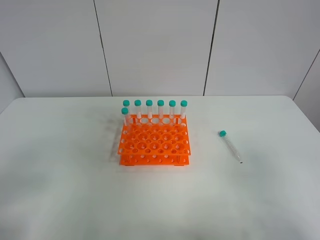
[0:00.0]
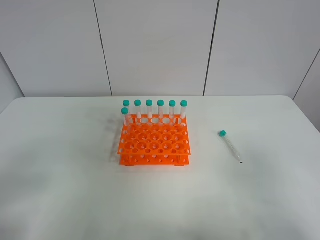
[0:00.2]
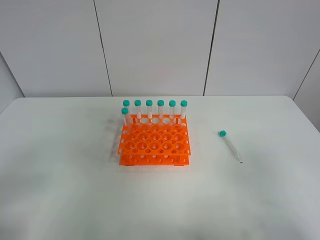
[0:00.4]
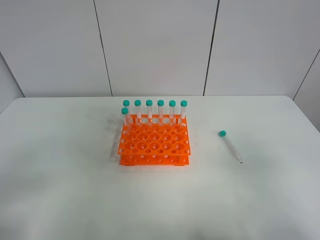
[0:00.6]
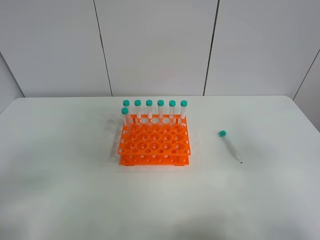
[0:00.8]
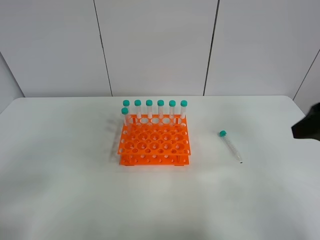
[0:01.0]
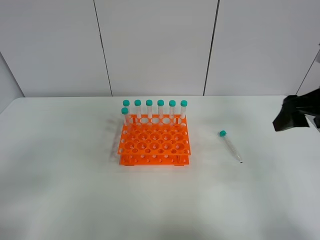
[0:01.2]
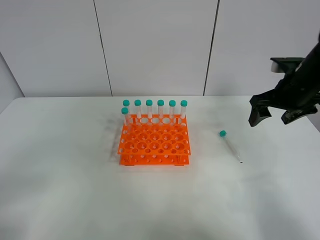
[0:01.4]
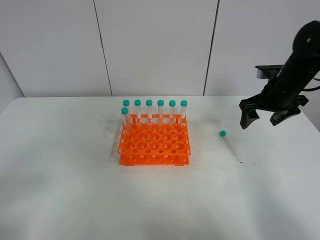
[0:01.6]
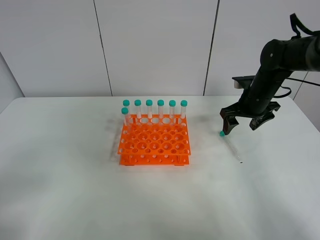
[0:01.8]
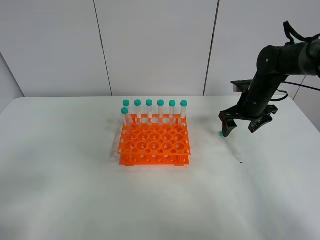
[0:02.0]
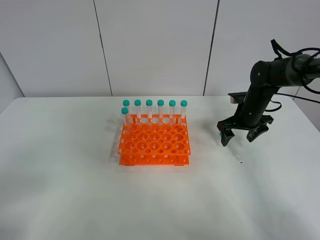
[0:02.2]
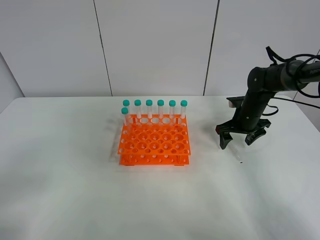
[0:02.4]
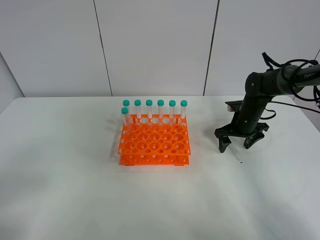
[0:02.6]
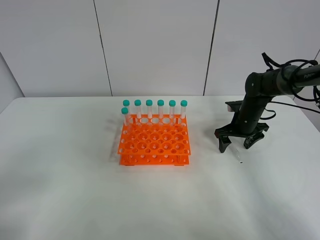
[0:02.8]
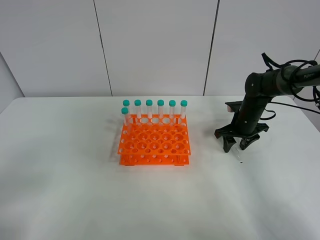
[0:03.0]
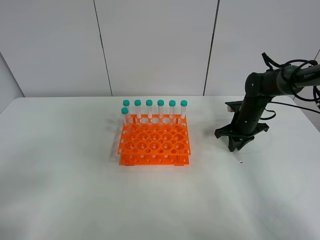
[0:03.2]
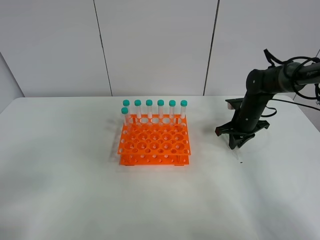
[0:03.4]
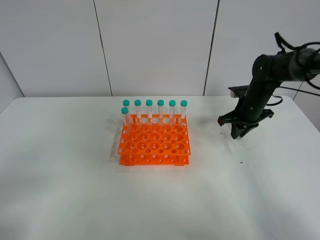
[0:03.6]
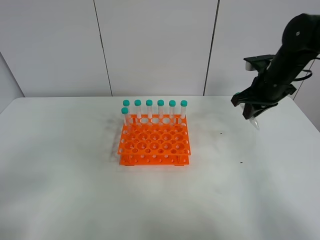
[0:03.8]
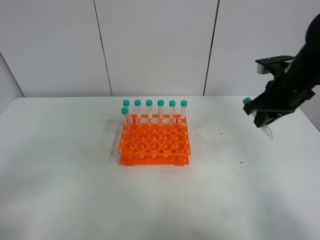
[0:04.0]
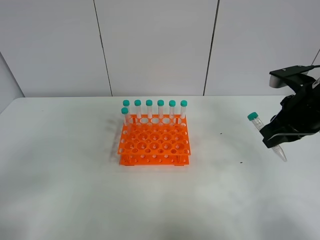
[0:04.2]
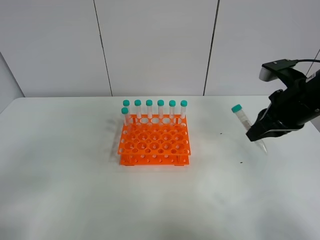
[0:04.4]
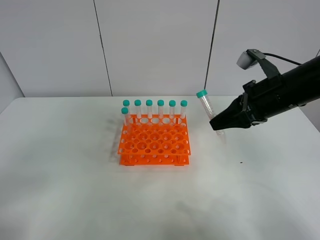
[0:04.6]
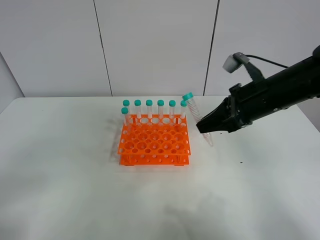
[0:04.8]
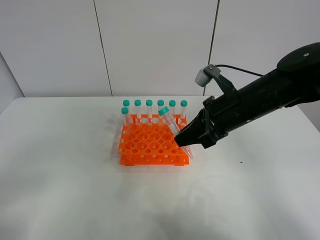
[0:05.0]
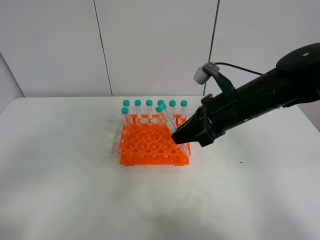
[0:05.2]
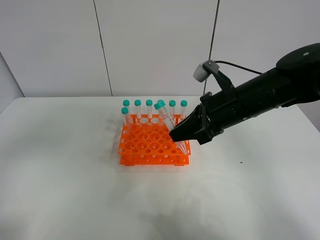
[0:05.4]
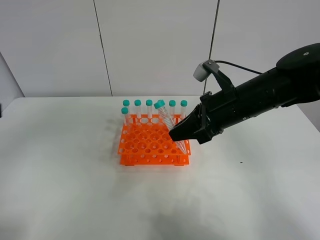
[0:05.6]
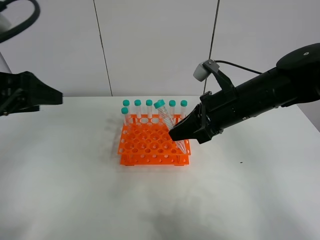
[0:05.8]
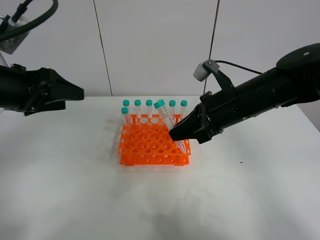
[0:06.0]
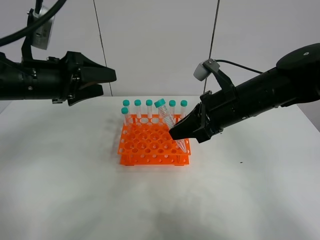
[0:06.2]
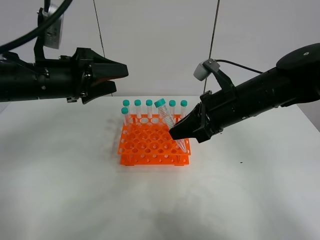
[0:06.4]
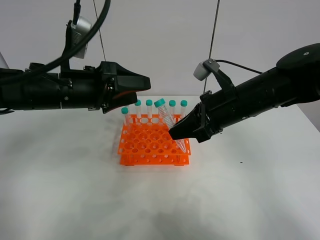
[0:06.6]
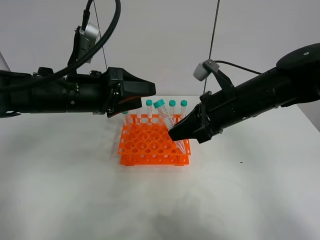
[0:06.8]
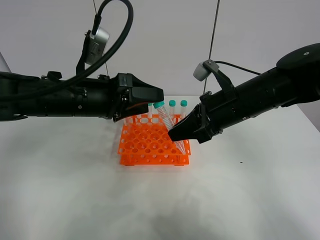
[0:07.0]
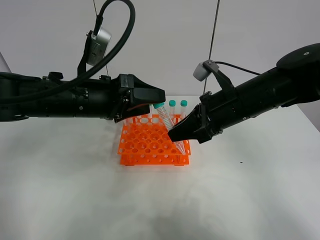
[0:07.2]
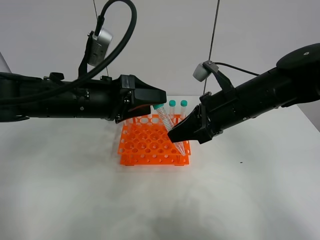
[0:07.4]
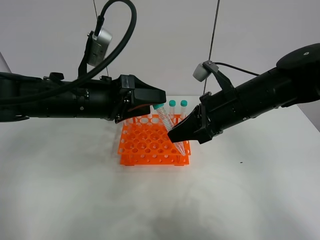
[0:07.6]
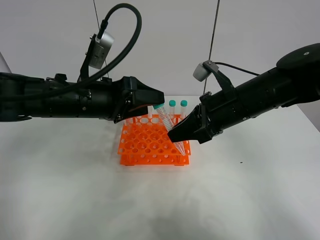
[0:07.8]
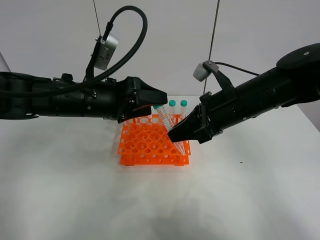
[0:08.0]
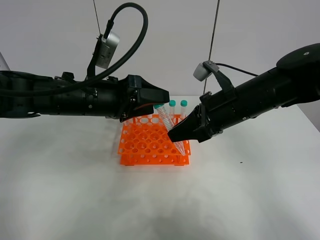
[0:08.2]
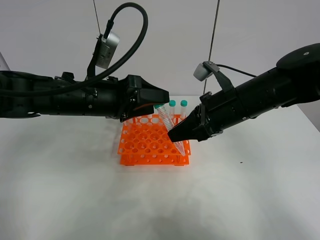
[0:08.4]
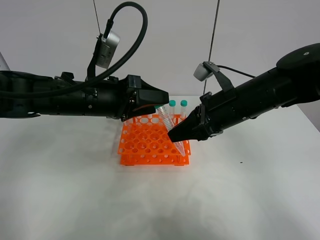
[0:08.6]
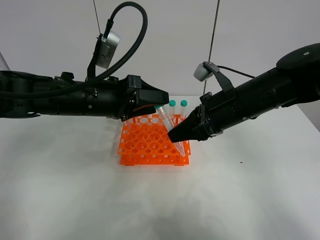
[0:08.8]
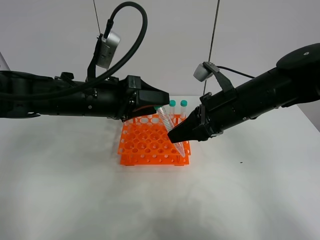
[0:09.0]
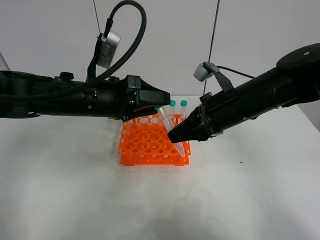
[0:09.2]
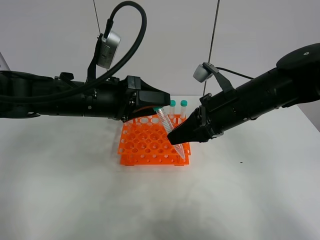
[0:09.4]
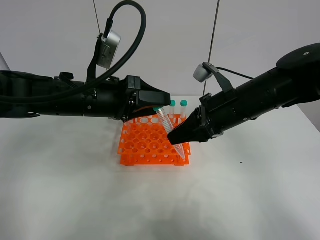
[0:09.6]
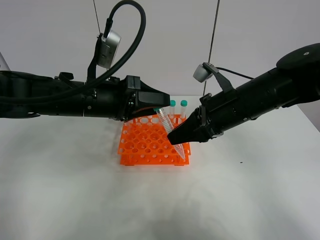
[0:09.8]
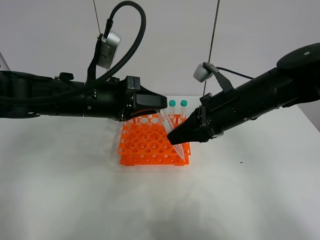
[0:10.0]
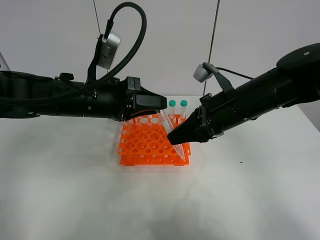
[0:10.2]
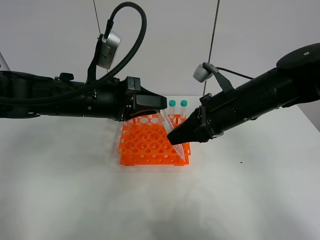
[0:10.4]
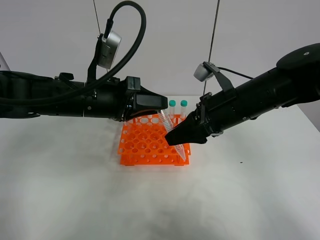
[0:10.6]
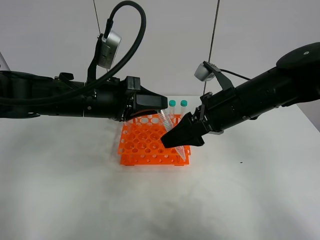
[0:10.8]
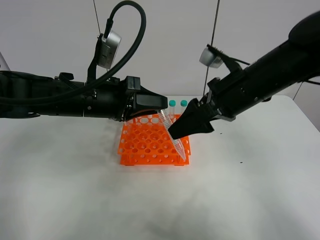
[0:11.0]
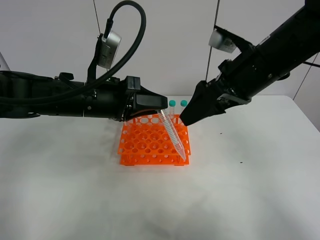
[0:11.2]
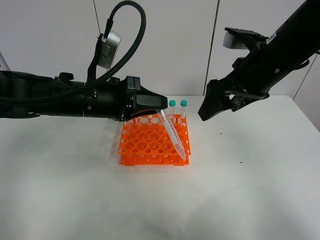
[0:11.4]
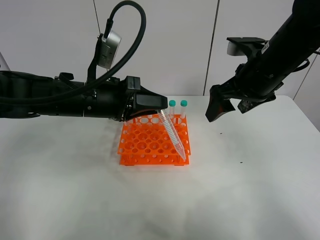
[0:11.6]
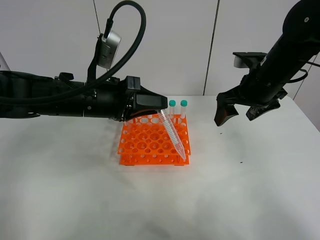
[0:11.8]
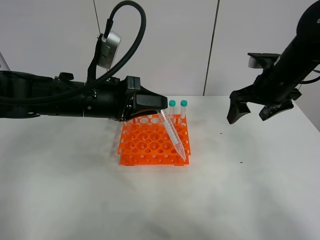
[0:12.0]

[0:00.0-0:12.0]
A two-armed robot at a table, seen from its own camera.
Task of the whole recording: Put the test tube on the table back onto the test tube rack.
Step, 0:00.0 to 0:03.2: Pick up the test tube with the right gripper.
Step, 0:03.4 to 0:10.6: Move the test tube from the right gripper to the left gripper.
0:00.0 to 0:01.6: The right gripper moves forward, some 35 cm.
0:01.6 to 0:03.0: The right gripper goes some 10 cm downward, and closes.
0:03.0 to 0:04.4: The right gripper shifts roughly 25 cm upward and backward, and closes up.
0:04.4 to 0:06.0: The right gripper goes some 10 cm to the left; the left gripper travels forward by approximately 25 cm.
0:06.0 to 0:07.6: The left gripper goes about 10 cm to the right.
0:07.6 to 0:09.0: The grippers stay close to where they were, moving slightly.
0:09.0 to 0:10.4: The left gripper closes.
0:10.4 to 0:12.0: The right gripper is displaced to the right and forward by approximately 15 cm, and opens up.

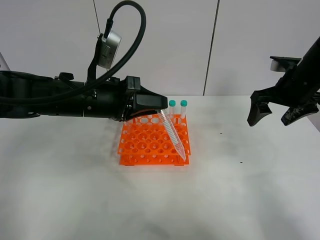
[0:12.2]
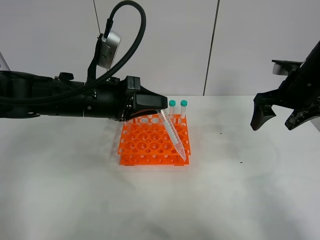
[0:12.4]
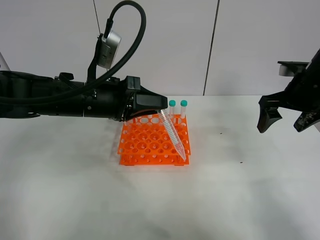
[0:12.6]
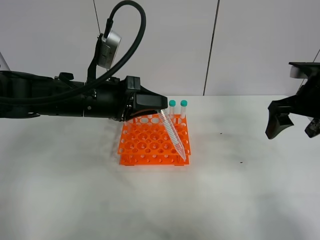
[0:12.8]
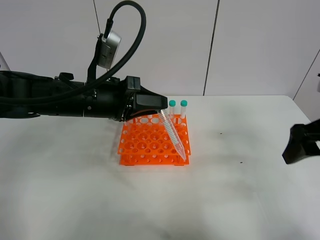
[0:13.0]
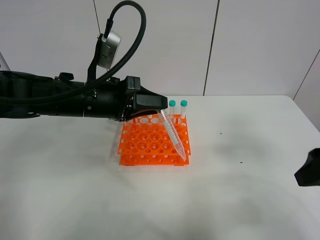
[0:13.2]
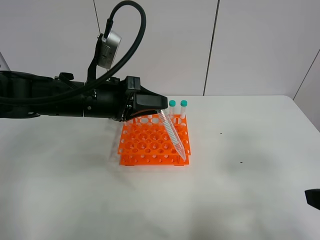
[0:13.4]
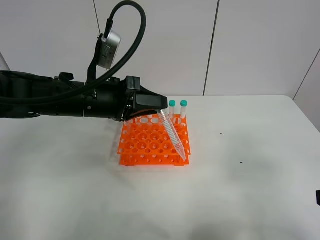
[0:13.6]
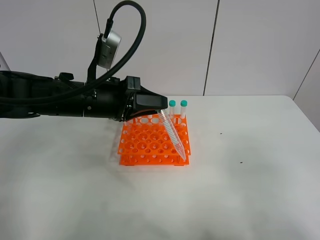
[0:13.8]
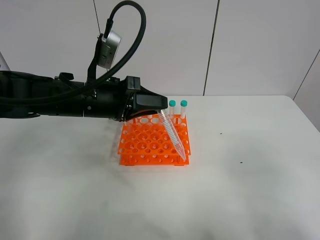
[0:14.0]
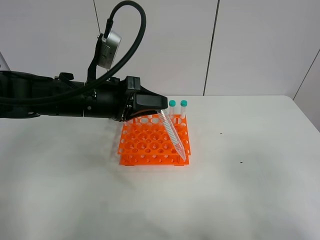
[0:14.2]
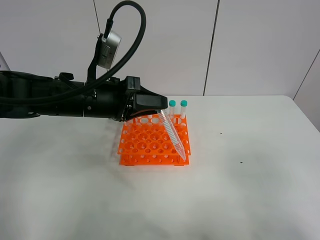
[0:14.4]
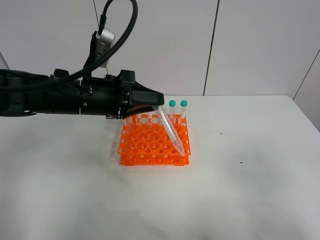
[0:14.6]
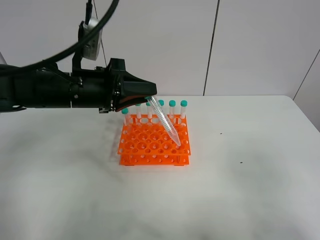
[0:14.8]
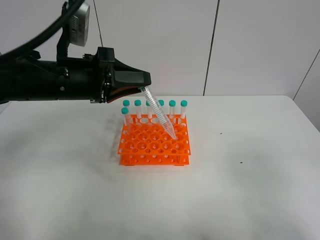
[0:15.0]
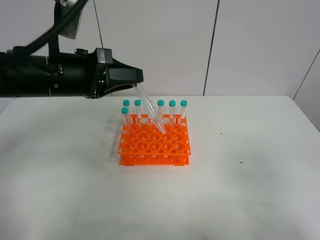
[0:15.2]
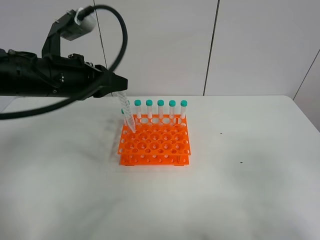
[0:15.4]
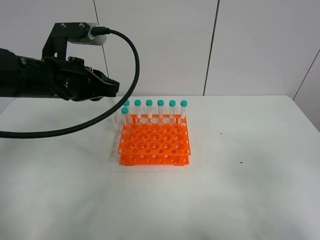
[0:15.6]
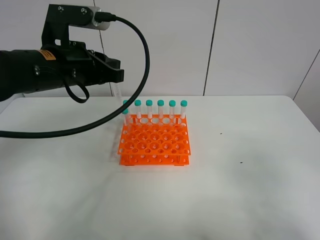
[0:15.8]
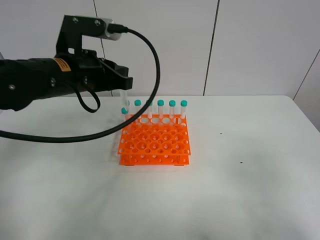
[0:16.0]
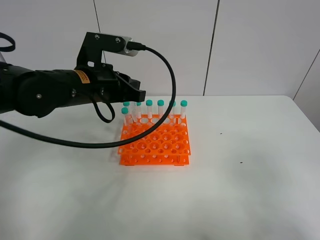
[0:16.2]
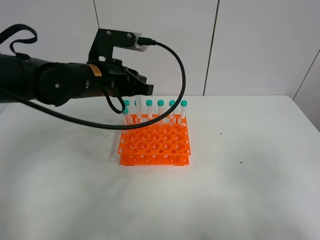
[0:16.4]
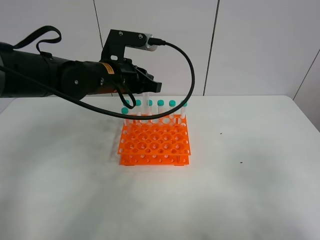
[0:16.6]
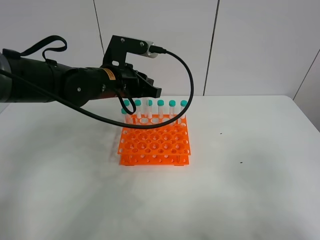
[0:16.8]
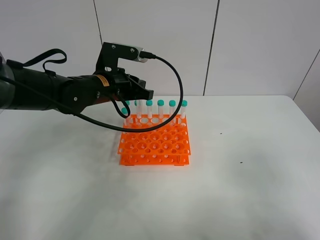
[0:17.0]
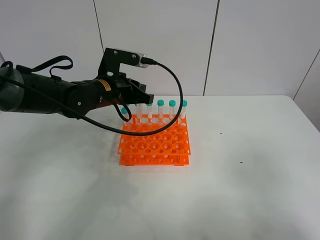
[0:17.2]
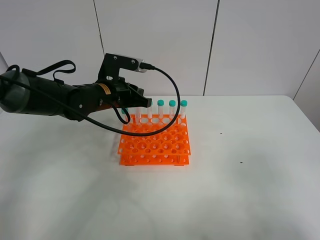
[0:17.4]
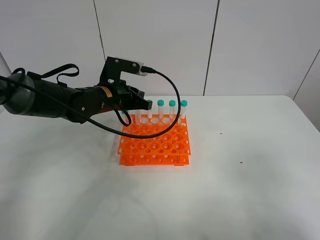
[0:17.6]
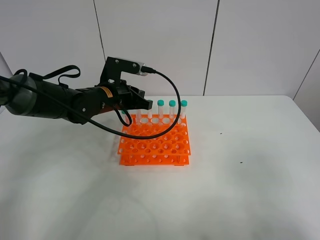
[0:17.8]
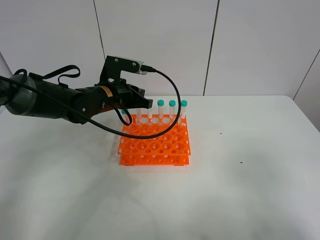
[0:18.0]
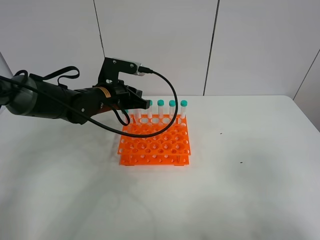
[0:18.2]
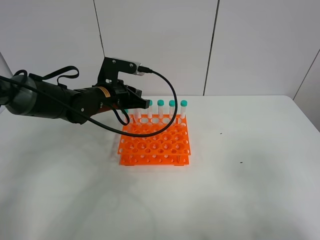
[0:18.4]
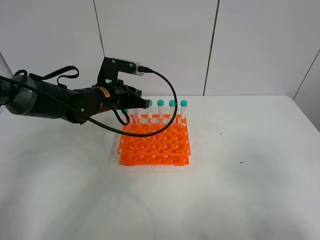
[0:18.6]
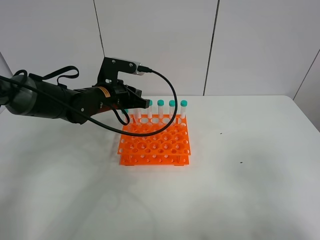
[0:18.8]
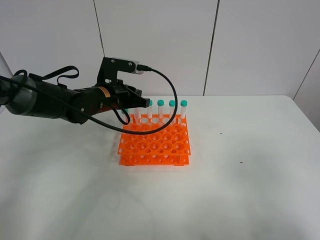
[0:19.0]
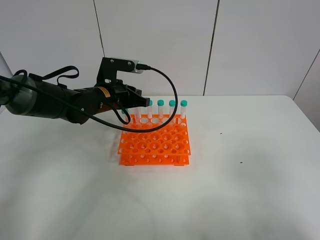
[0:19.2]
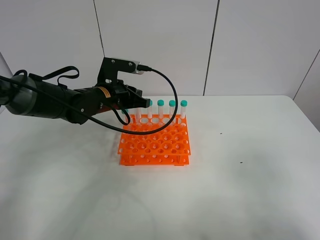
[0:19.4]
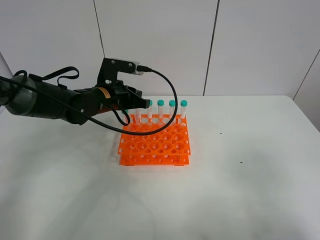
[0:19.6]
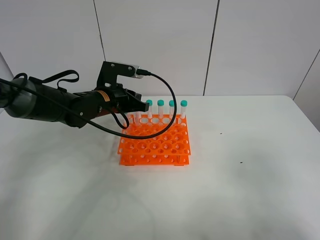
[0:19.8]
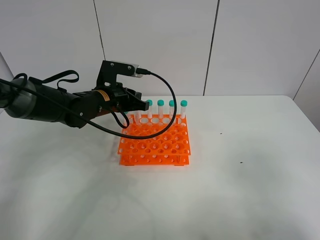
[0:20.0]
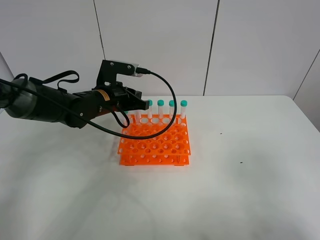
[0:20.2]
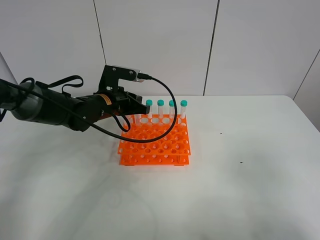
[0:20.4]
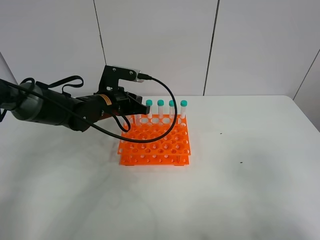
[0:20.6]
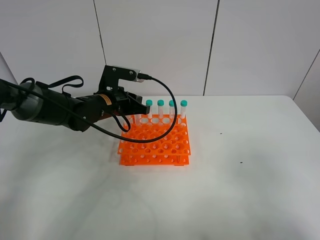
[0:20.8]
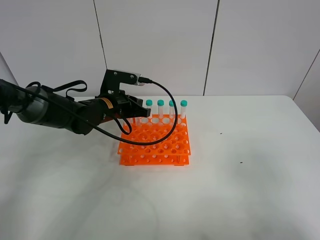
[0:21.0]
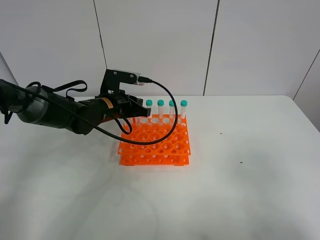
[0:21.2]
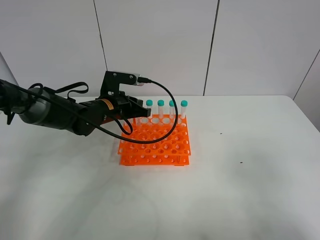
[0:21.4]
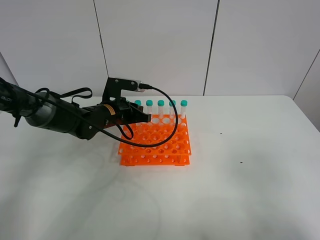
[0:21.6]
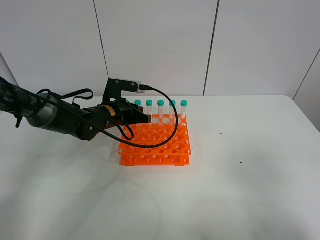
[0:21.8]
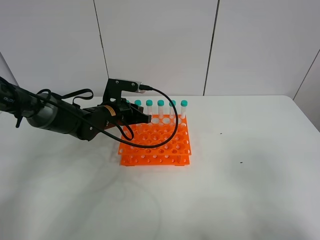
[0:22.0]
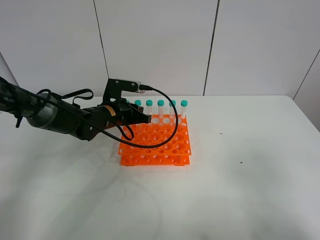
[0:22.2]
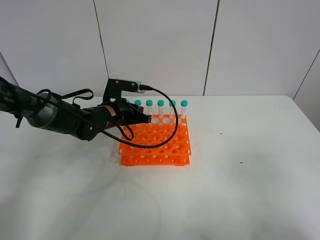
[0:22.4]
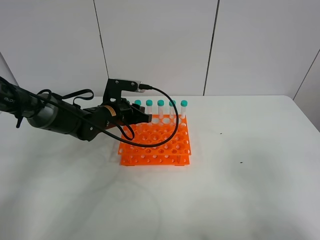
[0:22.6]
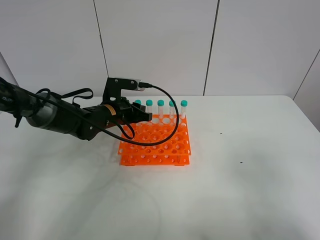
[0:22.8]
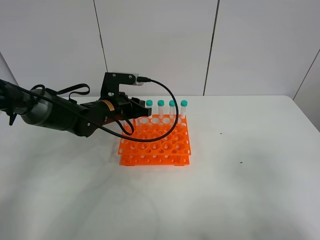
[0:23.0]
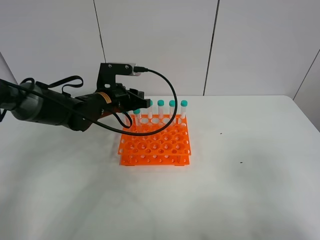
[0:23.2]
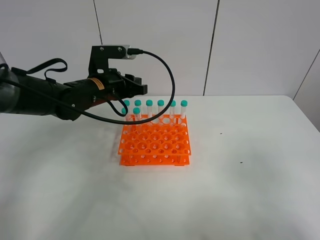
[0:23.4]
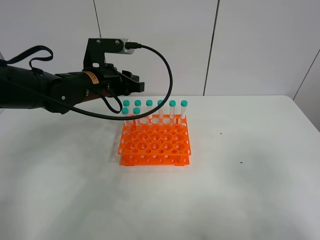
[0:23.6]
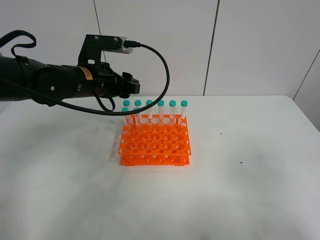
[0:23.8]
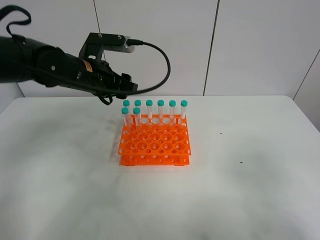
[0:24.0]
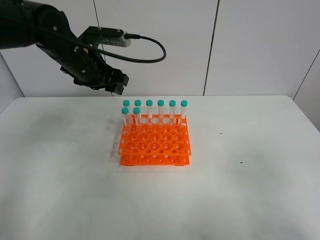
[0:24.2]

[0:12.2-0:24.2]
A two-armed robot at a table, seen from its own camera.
Task of the whole recording: Put the test tube on the table back onto the test tube rack.
Step, 0:12.2 to 0:22.8: Place the test tube on the test tube rack with the left gripper.
0:12.2 to 0:13.8: The right gripper travels backward by roughly 30 cm.
0:13.8 to 0:15.2: The left gripper is displaced upward by approximately 5 cm.
0:15.2 to 0:16.6: The left gripper shifts approximately 10 cm forward and to the right.
0:16.6 to 0:18.2: The left gripper travels downward by about 5 cm.
0:18.2 to 0:19.8: Both grippers stay about where they are.
0:19.8 to 0:22.6: There are only small adjustments of the grippers.
0:22.6 to 0:24.2: The left gripper moves upward, some 15 cm, and opens.
